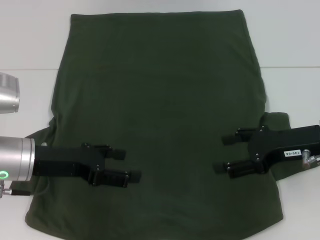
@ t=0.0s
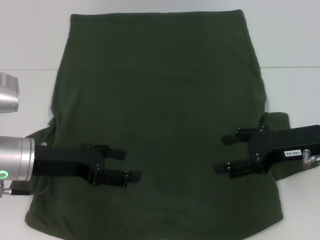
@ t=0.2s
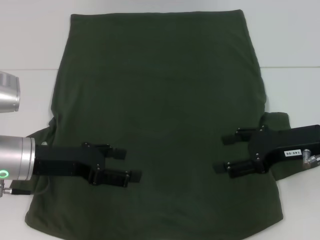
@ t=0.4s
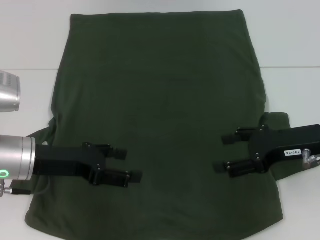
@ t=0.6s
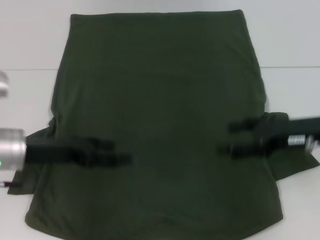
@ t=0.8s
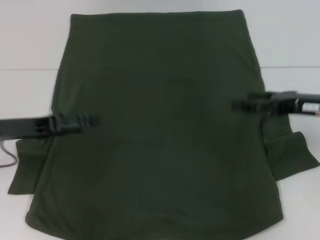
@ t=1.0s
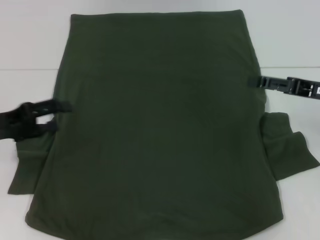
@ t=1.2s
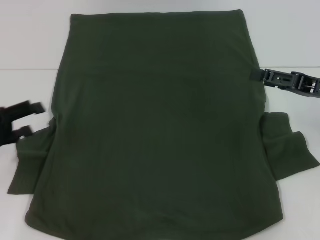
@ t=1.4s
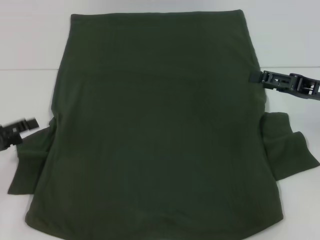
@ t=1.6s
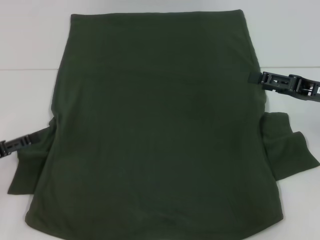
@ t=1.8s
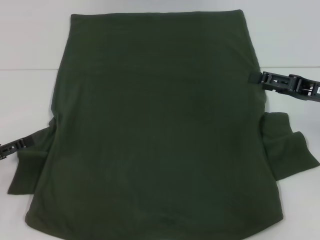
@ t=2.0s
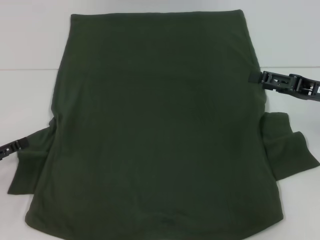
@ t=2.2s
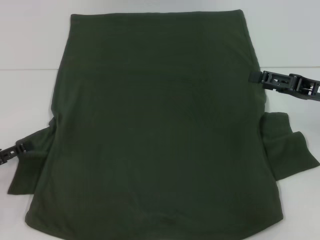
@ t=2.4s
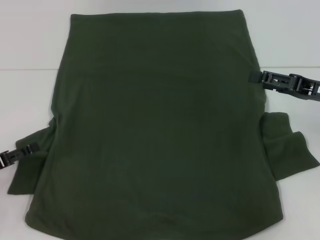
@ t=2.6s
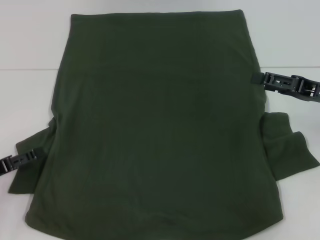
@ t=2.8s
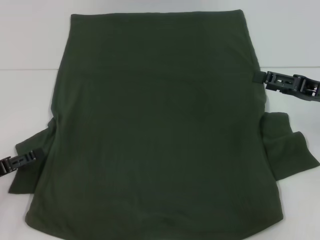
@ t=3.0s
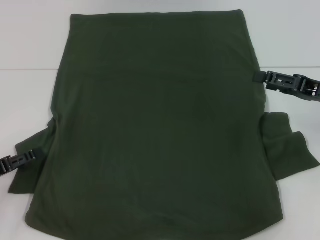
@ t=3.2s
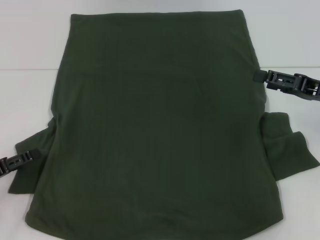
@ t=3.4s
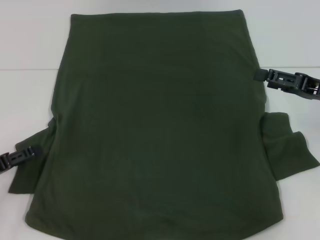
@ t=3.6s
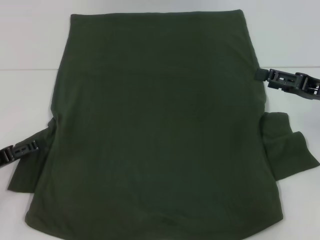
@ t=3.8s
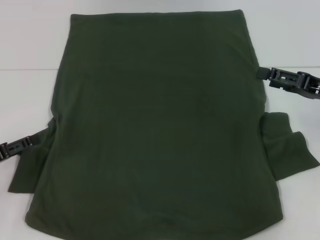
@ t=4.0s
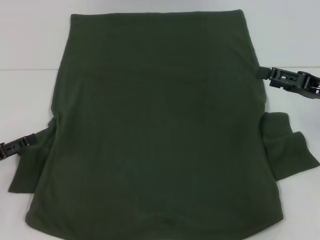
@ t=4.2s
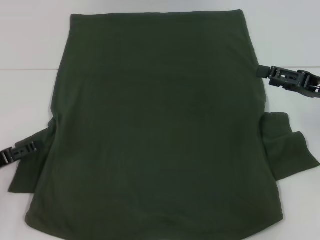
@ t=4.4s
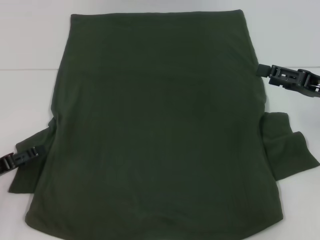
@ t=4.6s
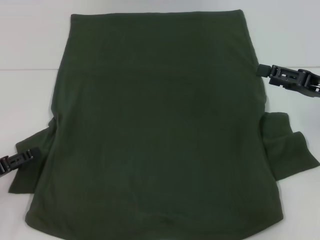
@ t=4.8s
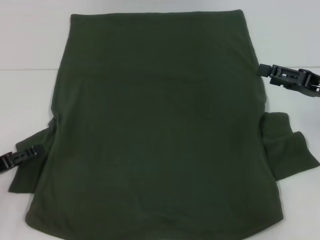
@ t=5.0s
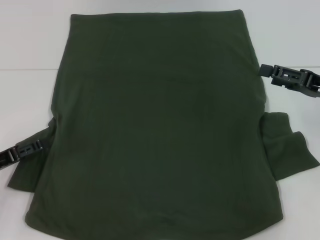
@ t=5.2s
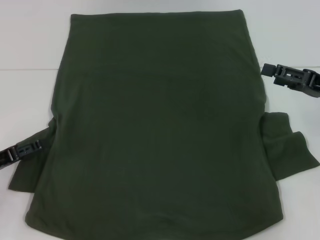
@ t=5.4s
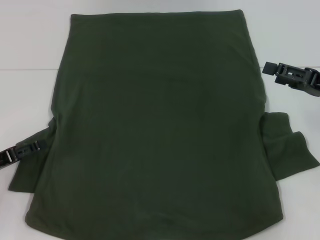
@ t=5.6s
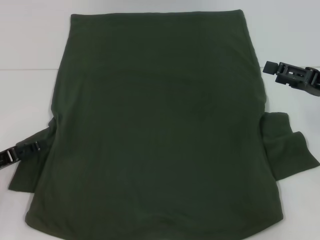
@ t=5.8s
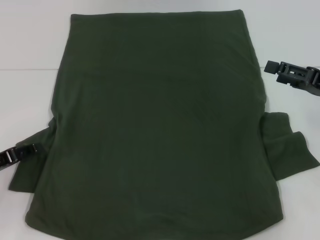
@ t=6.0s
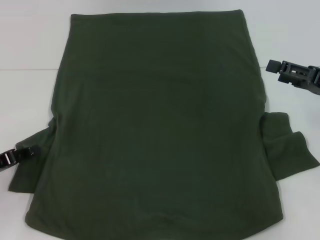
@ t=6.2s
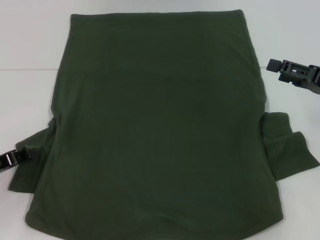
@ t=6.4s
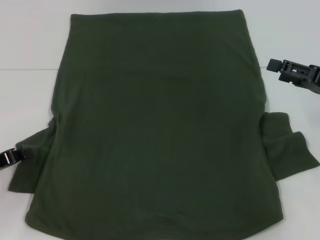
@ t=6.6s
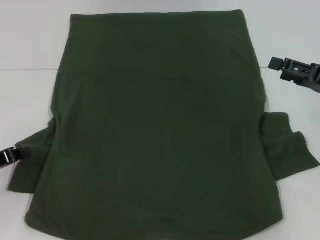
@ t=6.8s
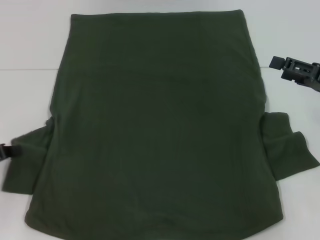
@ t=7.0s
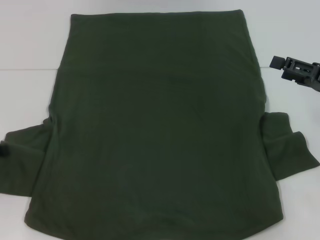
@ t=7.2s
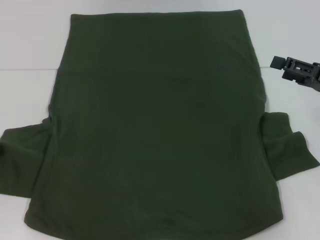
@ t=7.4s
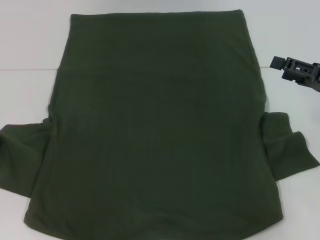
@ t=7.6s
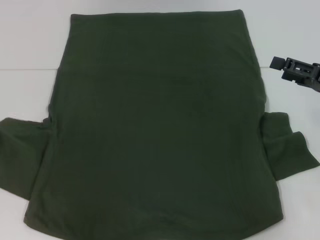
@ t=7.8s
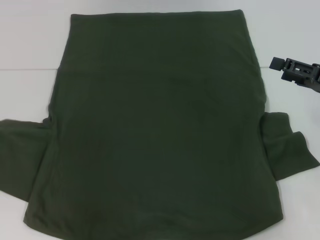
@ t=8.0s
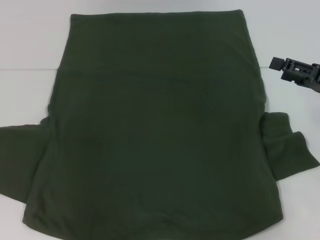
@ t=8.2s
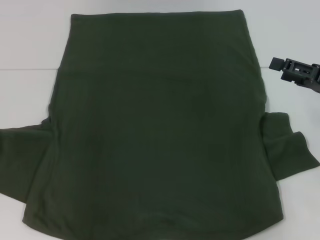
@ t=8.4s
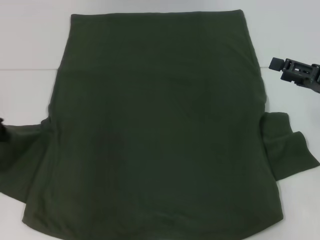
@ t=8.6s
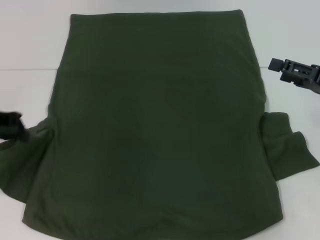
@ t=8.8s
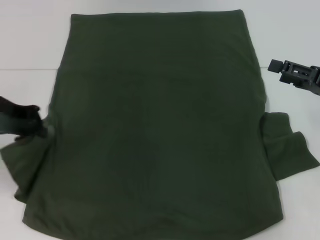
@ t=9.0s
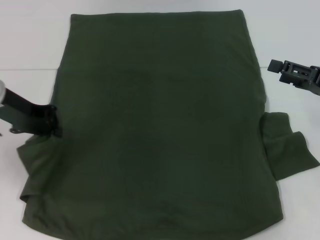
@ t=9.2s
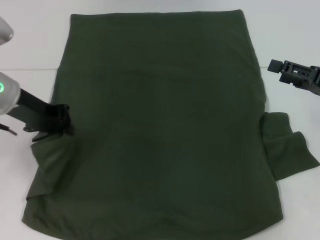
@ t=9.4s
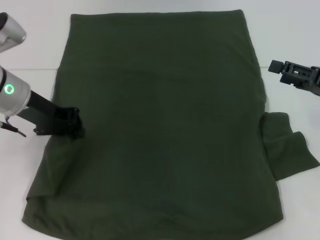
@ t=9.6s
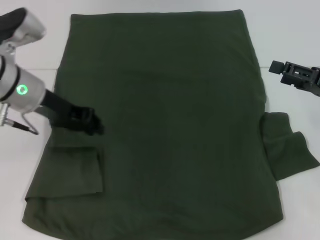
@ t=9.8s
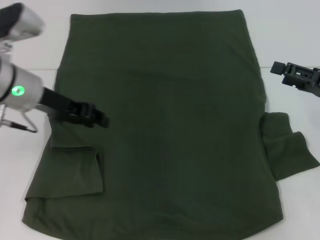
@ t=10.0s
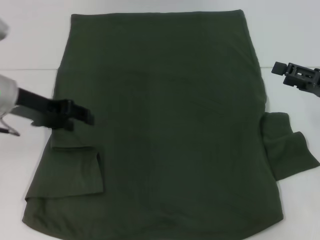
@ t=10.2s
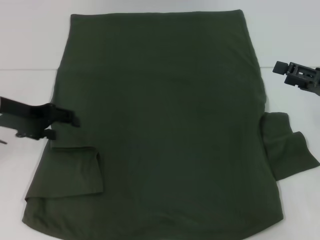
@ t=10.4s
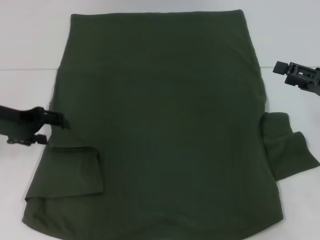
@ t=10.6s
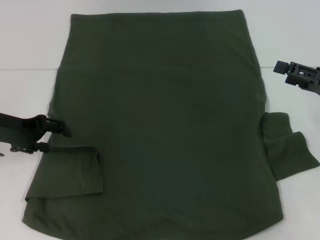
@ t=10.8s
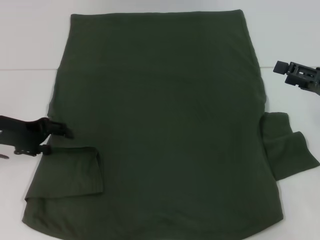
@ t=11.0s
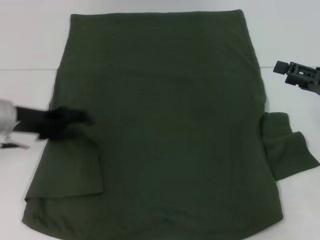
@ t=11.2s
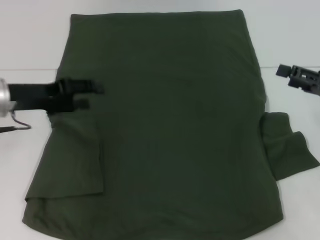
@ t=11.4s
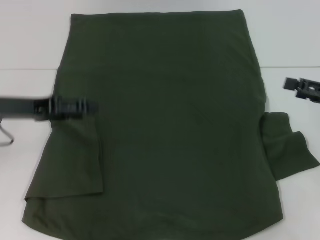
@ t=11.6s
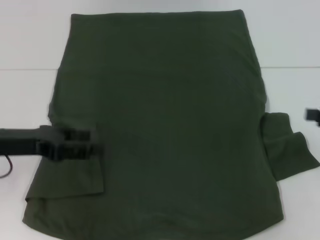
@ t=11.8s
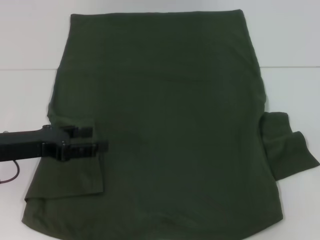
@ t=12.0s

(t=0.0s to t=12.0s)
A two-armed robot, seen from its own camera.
Step, t=0.0s - t=10.0s: Fold the bottom left sleeve with your left hand.
t=0.0s - t=1.6s: The right gripper goes some 5 cm to the right. The left gripper moves to the left, some 15 cm.
t=1.6s - t=6.0s: The grippers make only small movements.
t=6.0s - t=7.6s: The left gripper goes some 5 cm upward, and closes its fingers.
t=7.6s - t=9.0s: The left gripper shifts some 15 cm to the right, upward and forward.
t=9.0s - t=10.4s: The left gripper opens.
t=10.4s - t=12.0s: The right gripper goes approximately 10 cm to the right. Meanwhile the left gripper shifts some 5 cm backward.

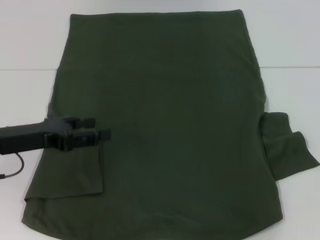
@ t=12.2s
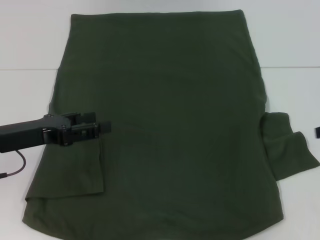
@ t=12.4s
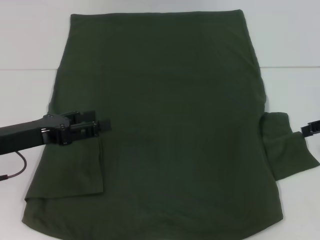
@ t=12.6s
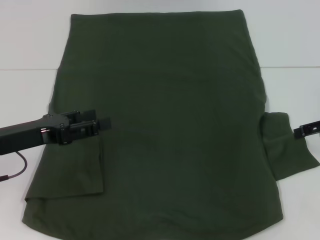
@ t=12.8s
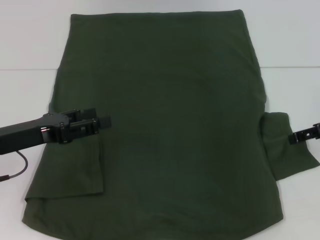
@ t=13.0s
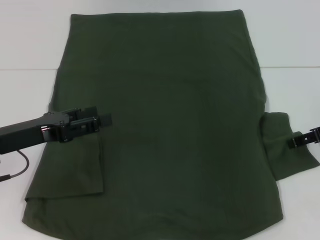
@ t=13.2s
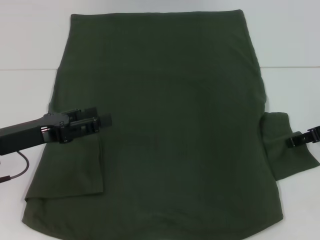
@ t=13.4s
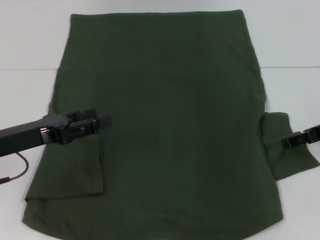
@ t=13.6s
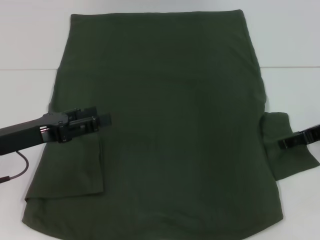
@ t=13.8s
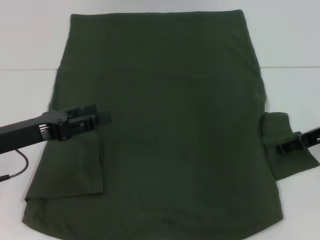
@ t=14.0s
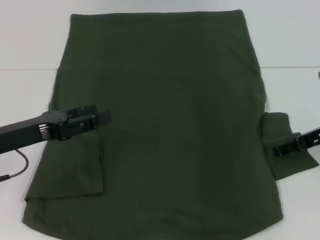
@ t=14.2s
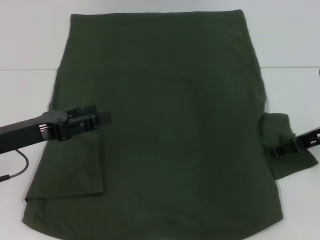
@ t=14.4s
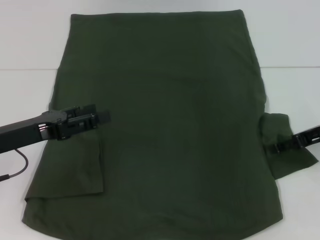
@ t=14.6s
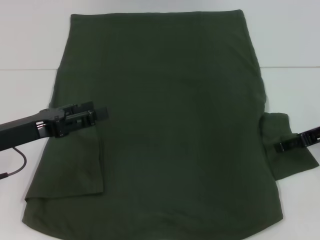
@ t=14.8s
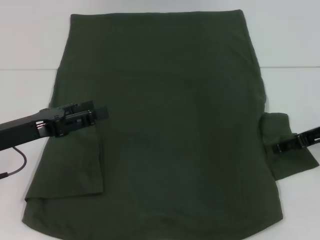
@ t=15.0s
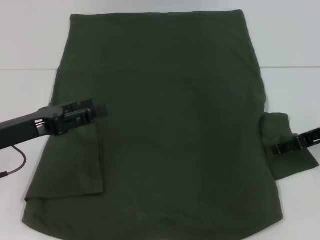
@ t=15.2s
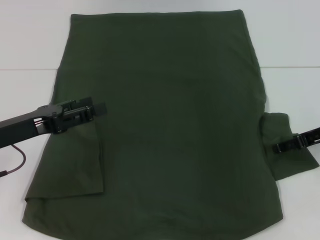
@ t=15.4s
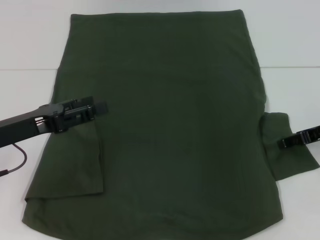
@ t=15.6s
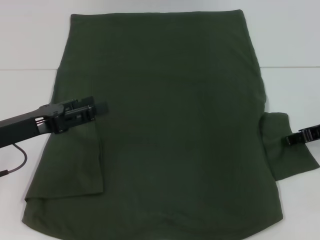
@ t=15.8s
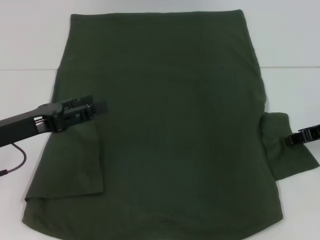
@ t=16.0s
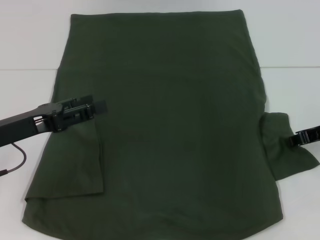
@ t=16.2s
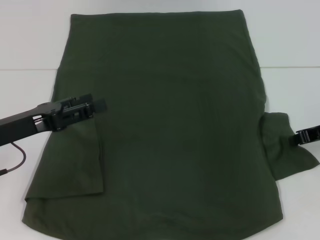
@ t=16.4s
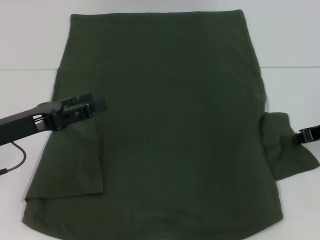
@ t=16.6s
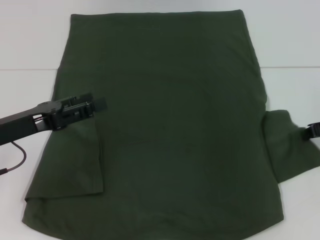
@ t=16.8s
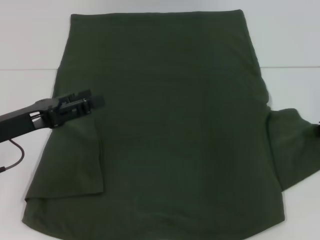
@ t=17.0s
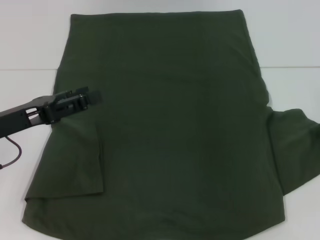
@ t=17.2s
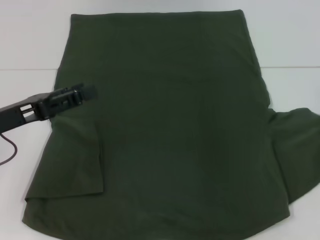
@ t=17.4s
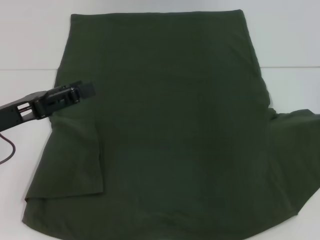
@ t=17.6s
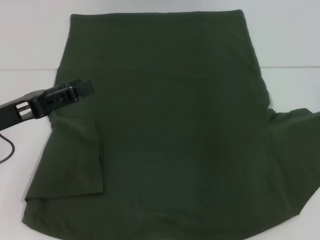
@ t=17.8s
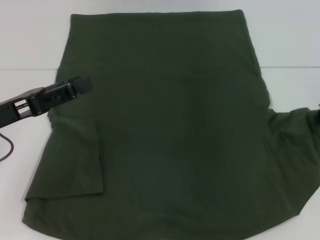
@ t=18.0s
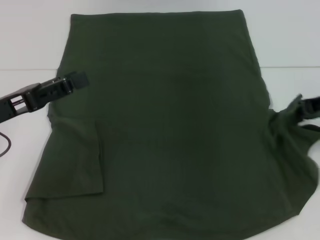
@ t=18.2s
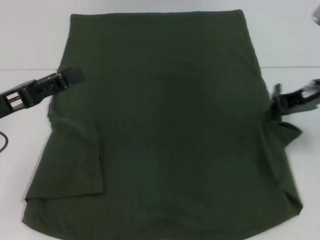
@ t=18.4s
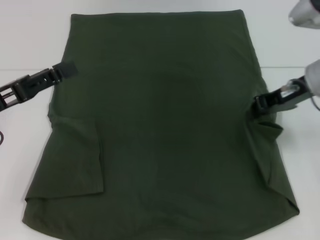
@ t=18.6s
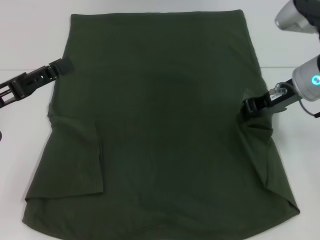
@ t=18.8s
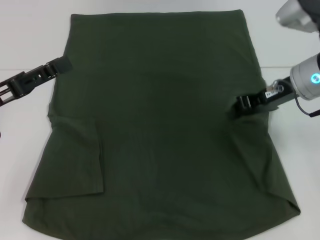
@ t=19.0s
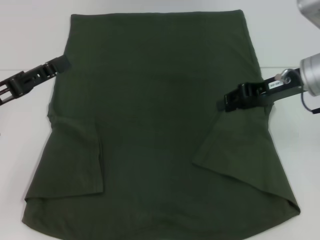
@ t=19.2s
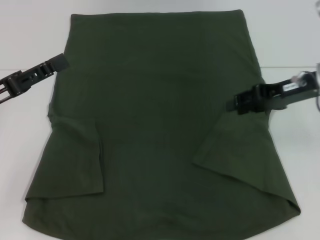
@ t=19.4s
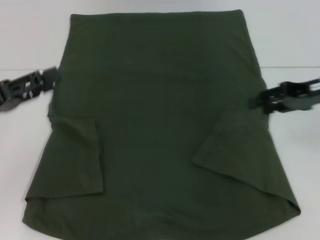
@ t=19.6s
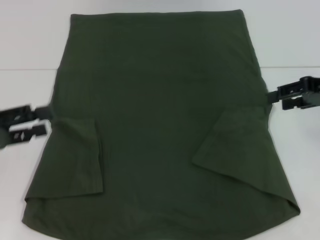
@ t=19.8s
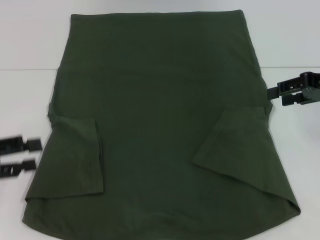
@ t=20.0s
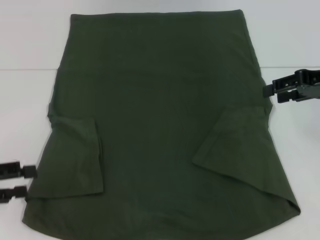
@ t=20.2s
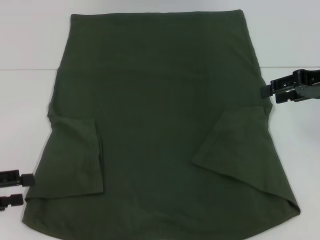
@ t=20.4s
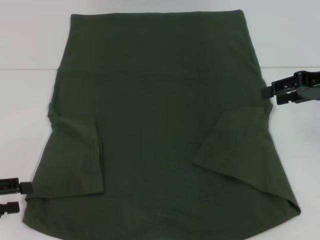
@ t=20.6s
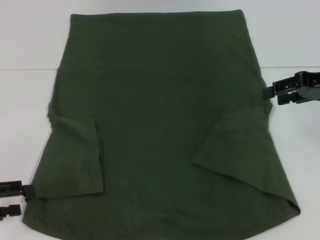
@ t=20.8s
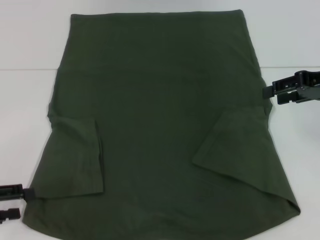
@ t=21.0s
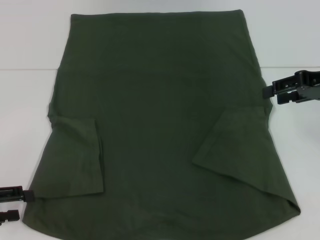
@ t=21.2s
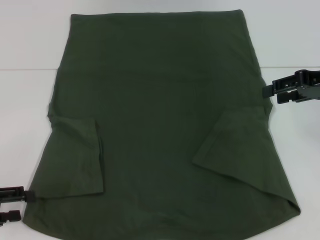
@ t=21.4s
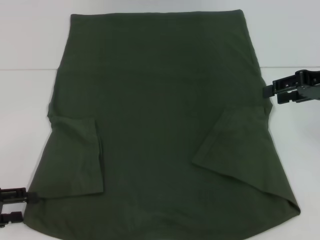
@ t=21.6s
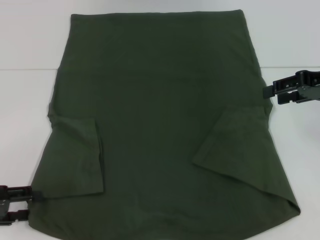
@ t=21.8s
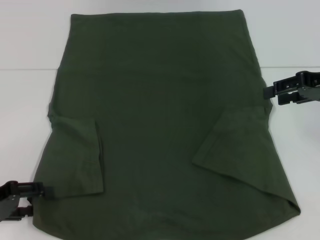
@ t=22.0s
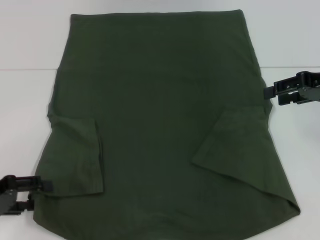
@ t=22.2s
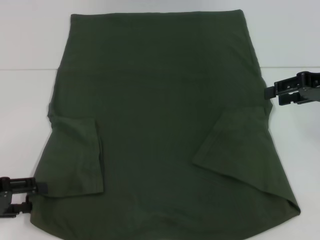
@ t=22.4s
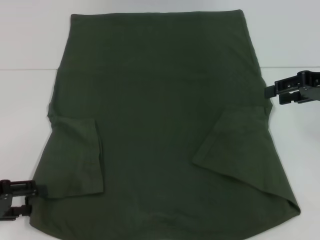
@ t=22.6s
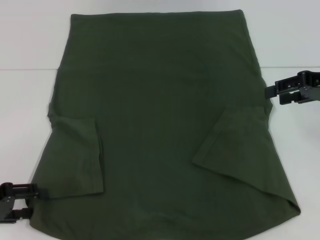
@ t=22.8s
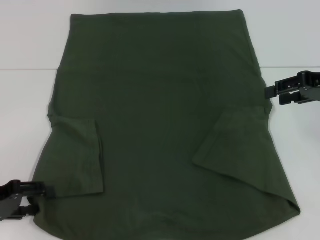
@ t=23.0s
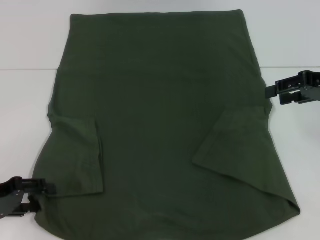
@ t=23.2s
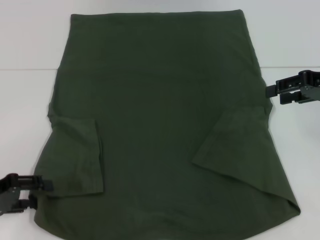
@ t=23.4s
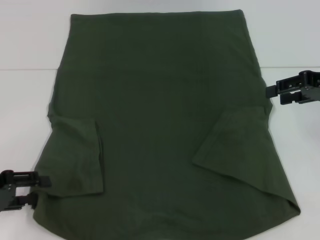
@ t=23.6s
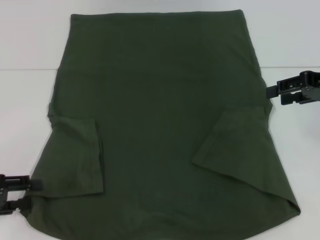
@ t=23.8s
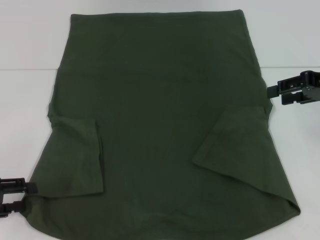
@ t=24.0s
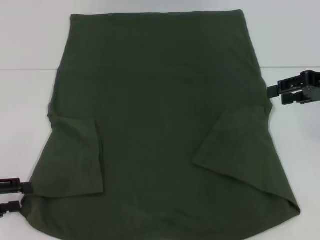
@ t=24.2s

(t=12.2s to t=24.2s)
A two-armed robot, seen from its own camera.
Step, t=12.2s - t=19.2s: Fold the bottom right sleeve with your right hand.
t=12.2s - t=13.8s: The right gripper heads to the left and downward, covering about 10 cm.
t=13.8s - t=15.2s: There are only small adjustments of the grippers.
t=15.2s - t=16.6s: The right gripper closes.
t=16.6s - t=18.2s: The right gripper moves upward, some 5 cm.
t=18.2s - t=19.8s: The right gripper goes to the left and returns, approximately 10 cm each way, and opens; the left gripper moves to the left, approximately 5 cm.
t=19.8s - t=21.2s: The left gripper shifts some 5 cm downward.
t=21.2s - t=24.2s: The grippers stay close to where they were, moving slightly.
